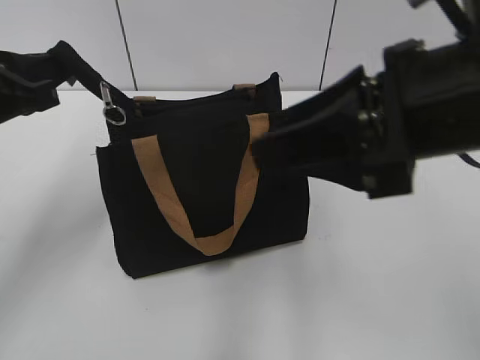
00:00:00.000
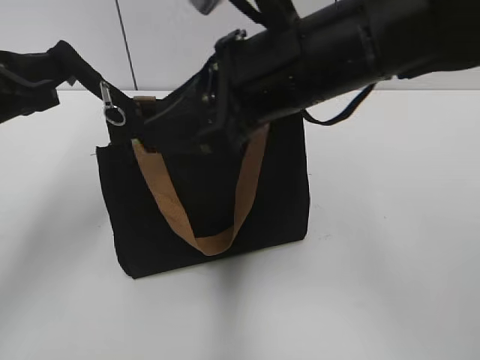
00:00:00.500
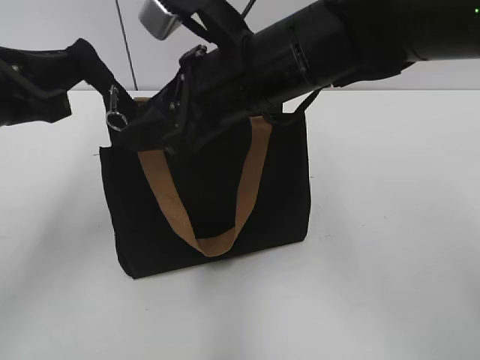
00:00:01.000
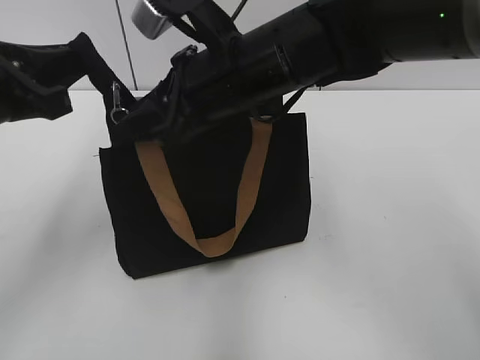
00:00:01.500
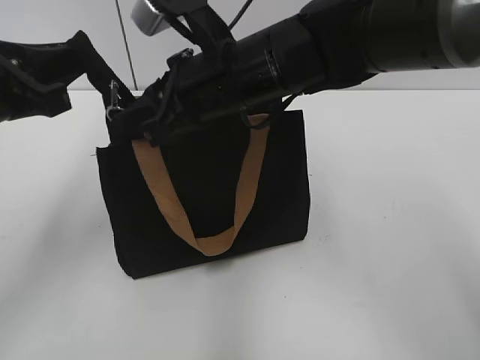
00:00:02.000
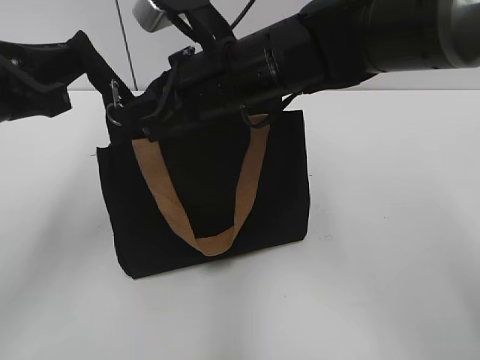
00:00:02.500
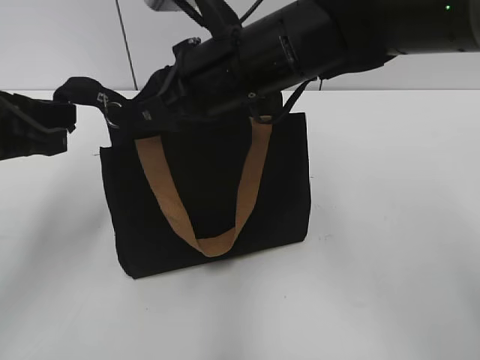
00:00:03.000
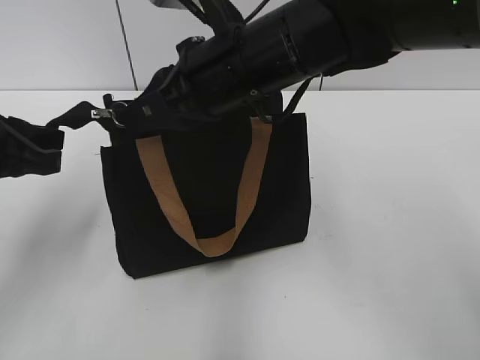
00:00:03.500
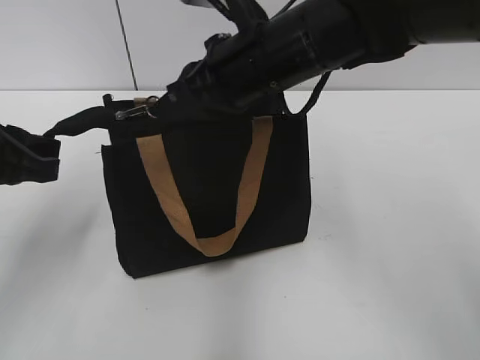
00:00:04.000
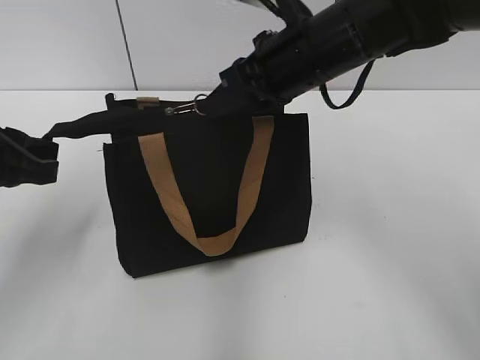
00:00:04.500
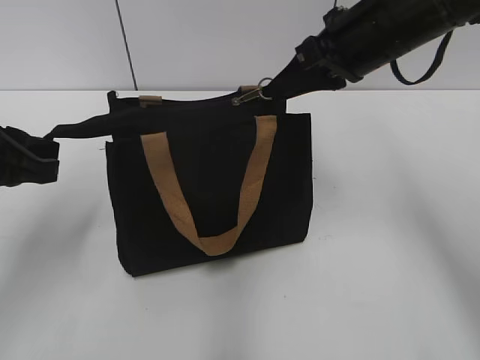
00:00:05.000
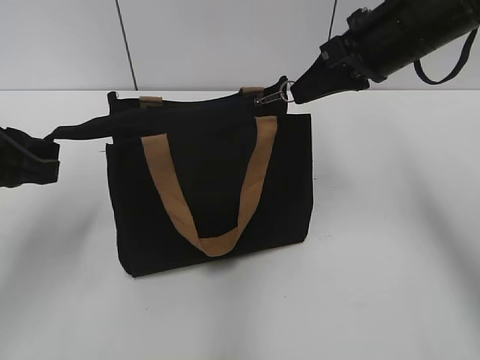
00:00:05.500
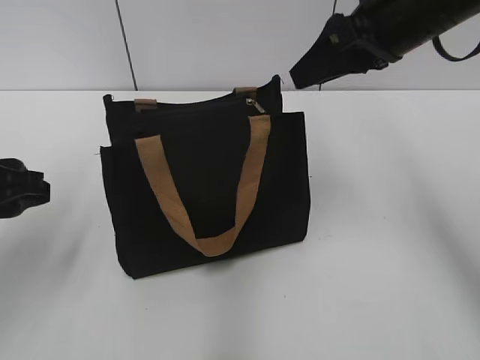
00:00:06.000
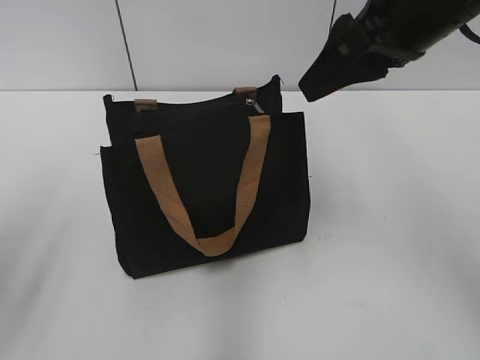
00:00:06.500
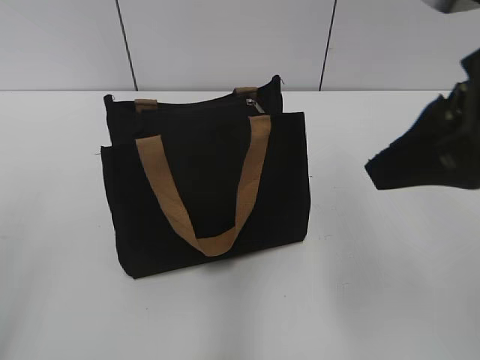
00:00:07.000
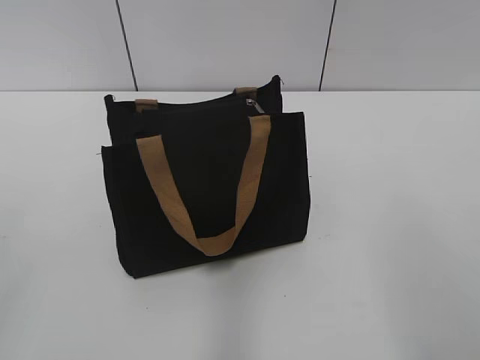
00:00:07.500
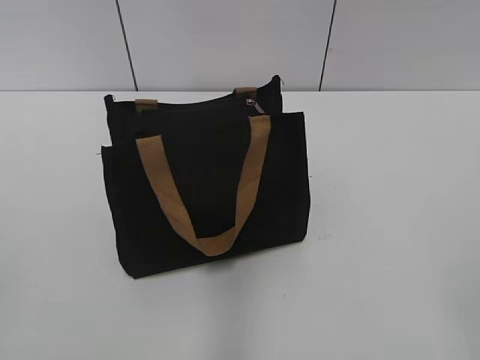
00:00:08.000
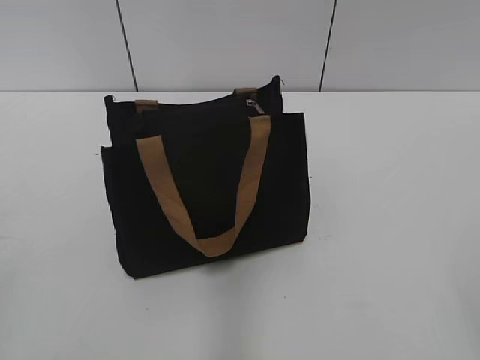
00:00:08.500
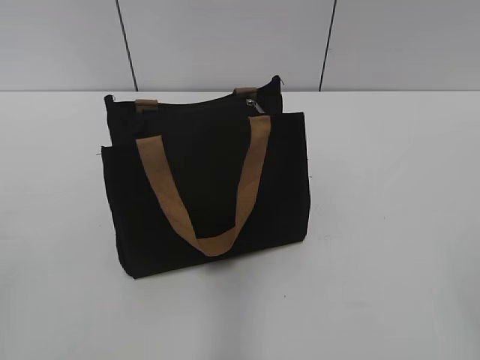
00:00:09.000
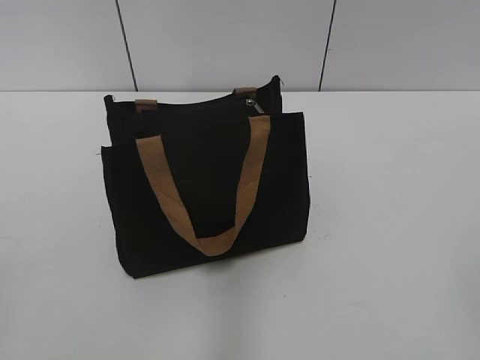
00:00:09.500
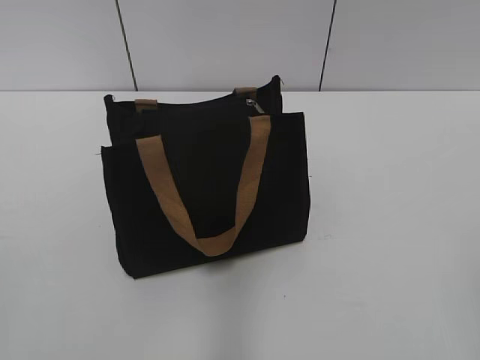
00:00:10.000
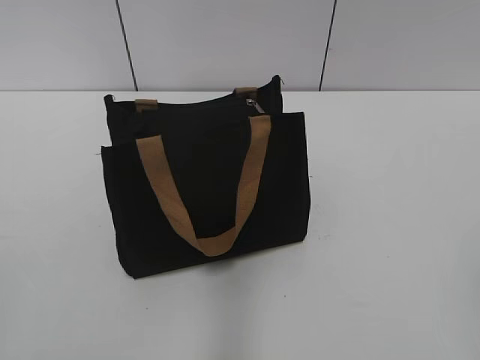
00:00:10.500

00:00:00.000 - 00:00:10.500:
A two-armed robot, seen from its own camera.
Step, 00:00:00.000 - 00:00:05.500: Zip up the bag with your right hand.
00:00:00.000 - 00:00:02.000: The right gripper shifts about 20 cm to the left, forward and downward, and closes its fingers.
00:00:02.000 - 00:00:04.000: The right gripper closes.
00:00:04.000 - 00:00:06.500: The left gripper heads backward, covering about 5 cm, and opens. The right gripper travels to the right and upward by some 15 cm, and opens up.
00:00:06.500 - 00:00:08.500: The left gripper heads backward, covering about 15 cm. Meanwhile the right gripper heads backward and to the right, covering roughly 35 cm.
